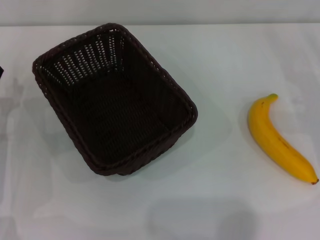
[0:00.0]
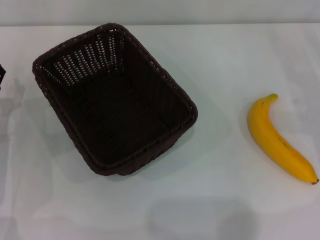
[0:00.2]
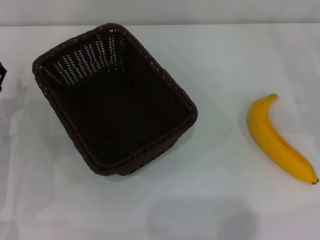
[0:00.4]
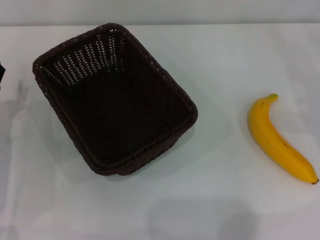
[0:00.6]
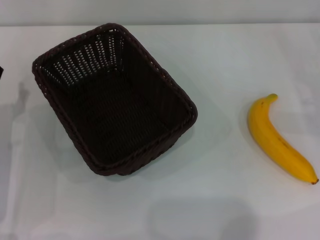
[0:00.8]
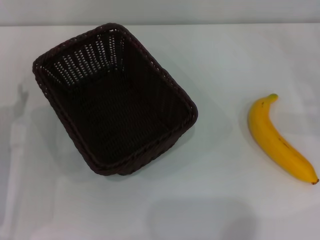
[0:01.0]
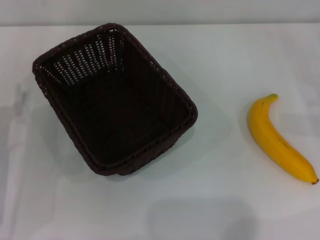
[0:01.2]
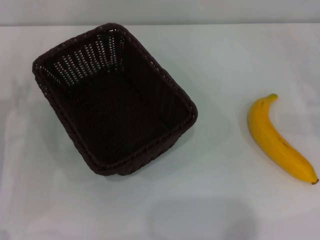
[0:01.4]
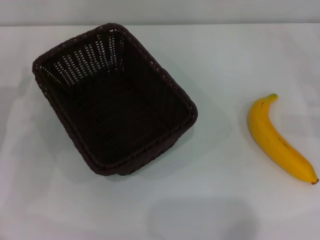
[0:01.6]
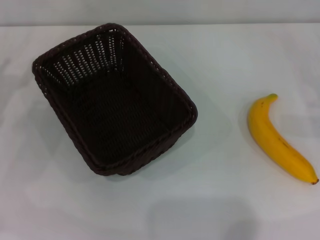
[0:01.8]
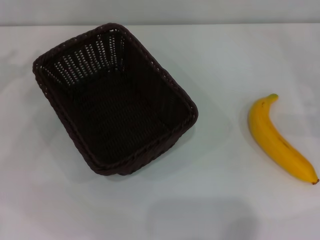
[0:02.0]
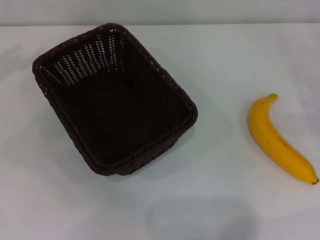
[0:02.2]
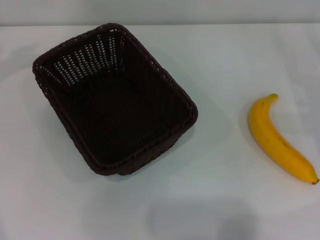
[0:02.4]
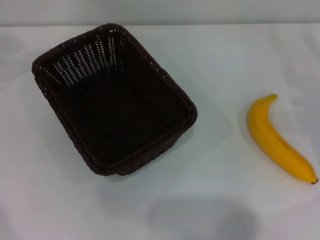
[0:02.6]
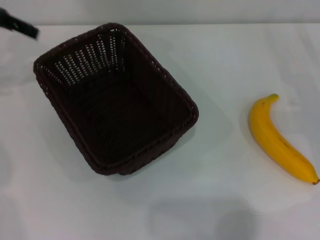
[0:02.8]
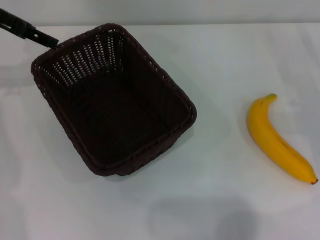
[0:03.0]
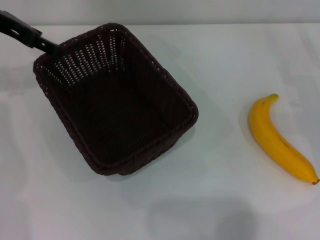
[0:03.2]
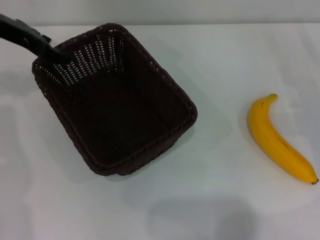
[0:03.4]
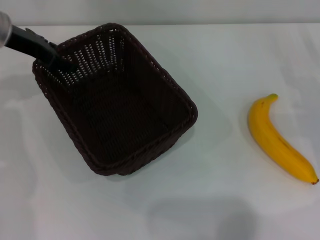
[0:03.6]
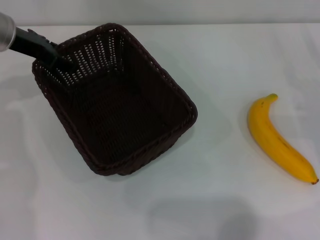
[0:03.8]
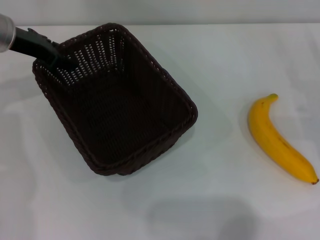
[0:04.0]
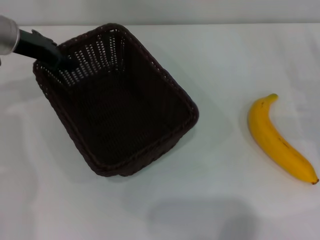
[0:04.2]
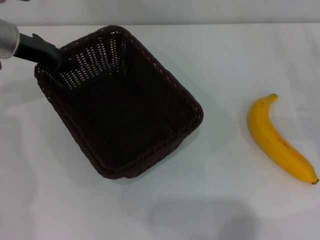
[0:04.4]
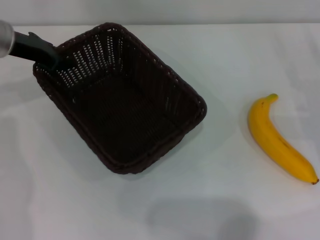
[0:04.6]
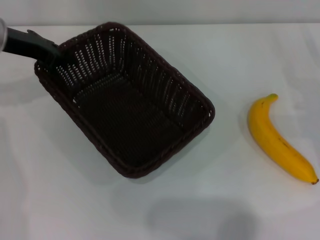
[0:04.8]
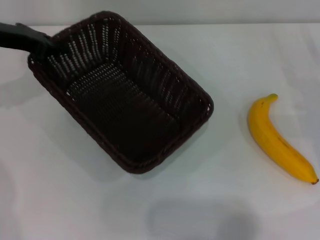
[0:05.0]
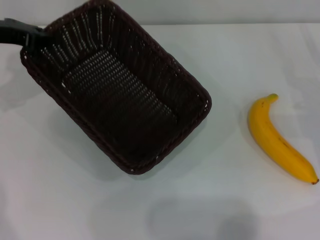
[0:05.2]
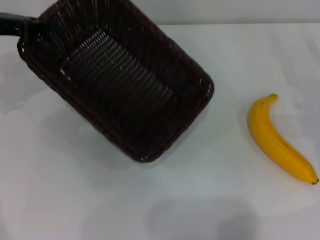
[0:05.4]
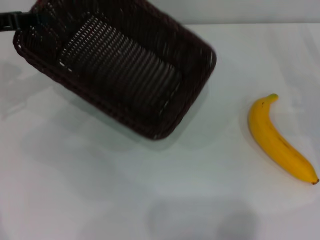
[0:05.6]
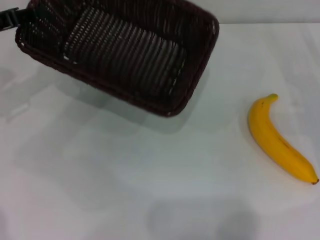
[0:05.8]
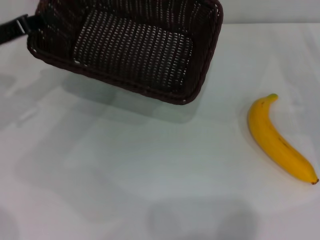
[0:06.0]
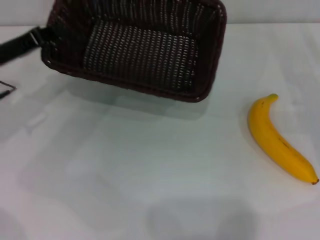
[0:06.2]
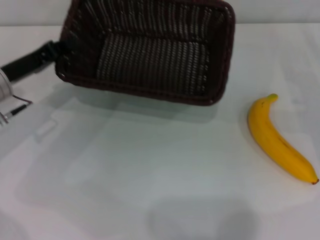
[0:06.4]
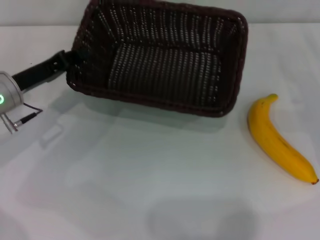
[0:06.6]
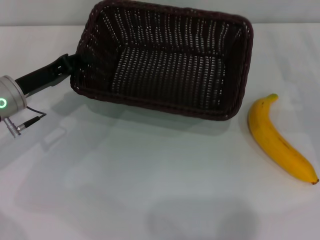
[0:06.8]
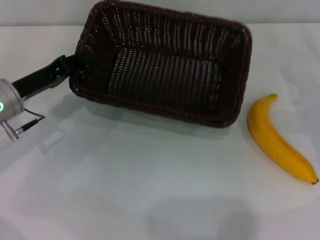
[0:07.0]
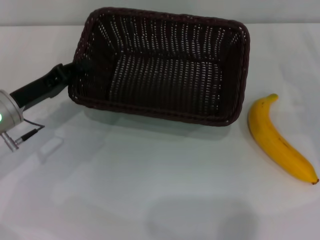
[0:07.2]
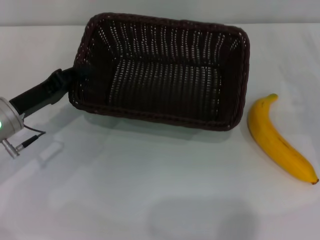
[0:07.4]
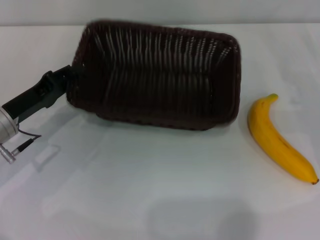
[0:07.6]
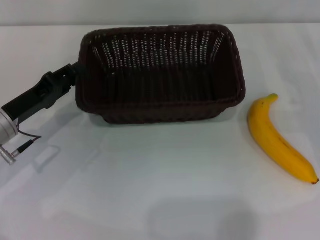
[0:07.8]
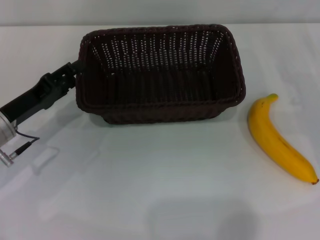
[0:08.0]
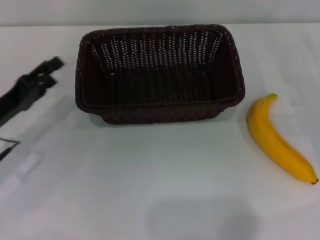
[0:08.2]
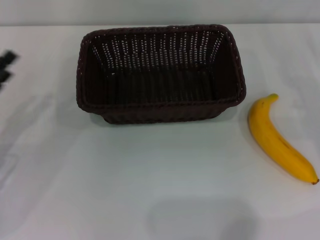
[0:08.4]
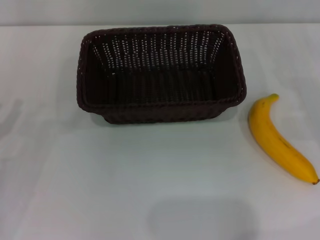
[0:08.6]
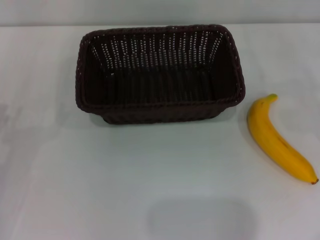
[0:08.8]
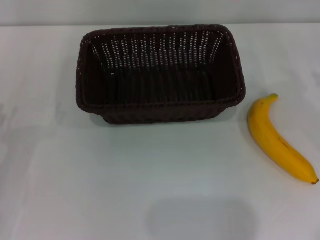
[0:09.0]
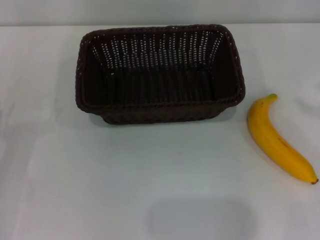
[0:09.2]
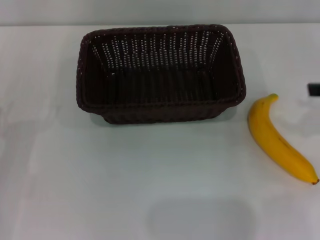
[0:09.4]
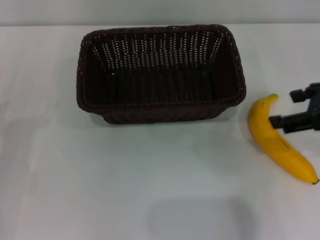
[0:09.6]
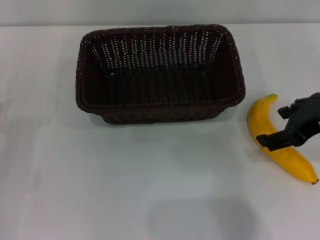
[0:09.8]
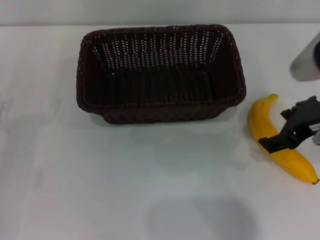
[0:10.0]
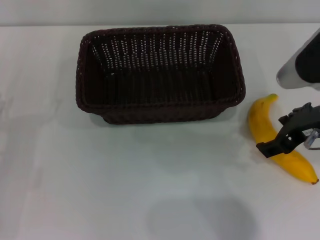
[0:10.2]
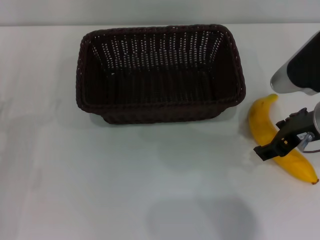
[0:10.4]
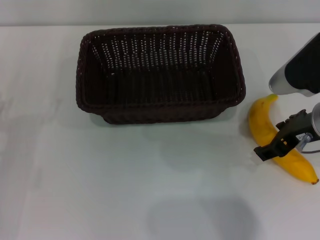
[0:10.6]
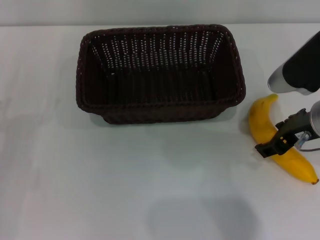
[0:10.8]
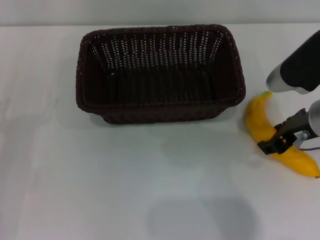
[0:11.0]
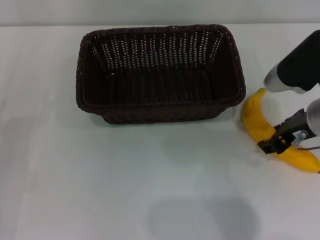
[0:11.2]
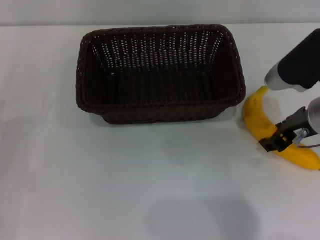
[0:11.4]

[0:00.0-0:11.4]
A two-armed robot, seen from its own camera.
Step, 0:00.0 to 0:05.2: Pick up the dark basket with the left gripper.
Step, 0:05.4 to 0:08.0: Place the dark basket in the center of view with the left gripper.
0:01.4 to 0:02.8: The left gripper is displaced upward and forward by some 25 cm.
0:02.8 to 0:04.2: The left gripper moves downward and to the right, roughly 10 cm.
0:04.2 to 0:05.6: The left gripper goes about 10 cm to the left and backward, and closes its fingers.
0:05.6 to 0:07.2: The left gripper is displaced downward, backward and to the right by some 15 cm.
0:07.2 to 0:08.6: The left gripper is displaced backward and to the left by some 15 cm, and opens.
0:08.6 to 0:10.0: The right gripper goes approximately 20 cm to the left and upward.
0:10.0 to 0:11.4: The right gripper shifts by about 5 cm, and closes its fingers.

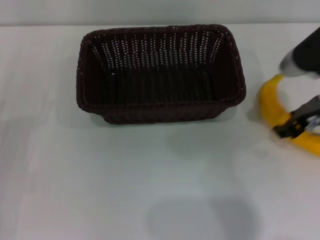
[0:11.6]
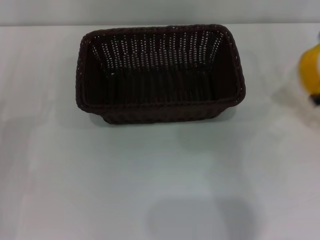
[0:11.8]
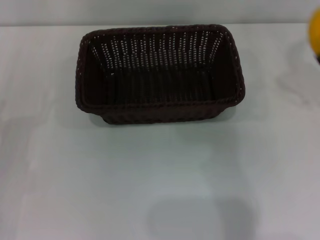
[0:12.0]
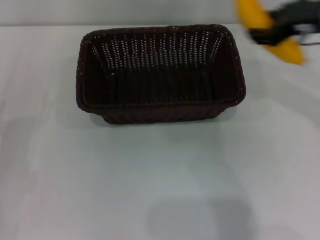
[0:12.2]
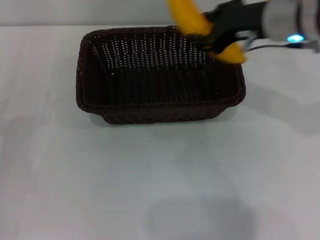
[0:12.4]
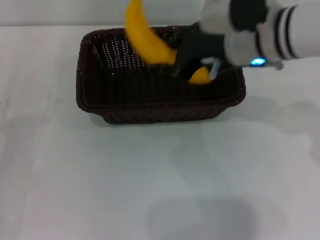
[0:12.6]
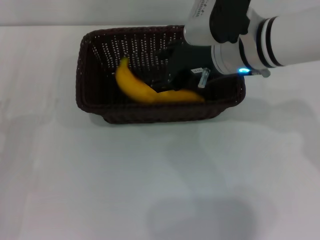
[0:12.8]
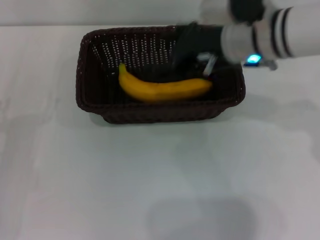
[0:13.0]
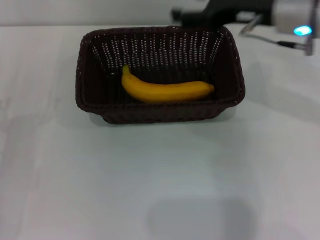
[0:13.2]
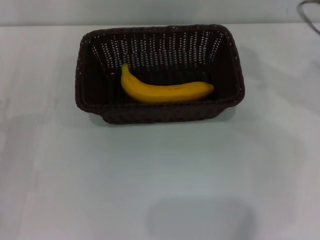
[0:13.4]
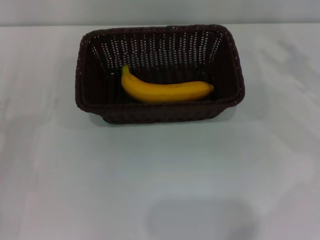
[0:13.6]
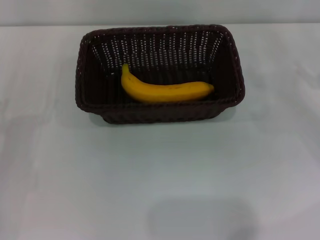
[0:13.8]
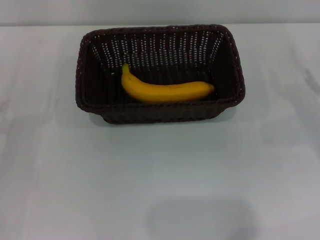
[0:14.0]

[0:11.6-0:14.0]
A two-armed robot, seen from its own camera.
Step, 0:12.2 to 0:13.0: Place the banana into the dark basket with the right gripper.
0:11.6 to 0:12.8: The right gripper shifts approximately 15 cm to the left.
0:12.8 to 0:14.0: The right gripper travels to the right and downward by approximately 30 cm, and opens up.

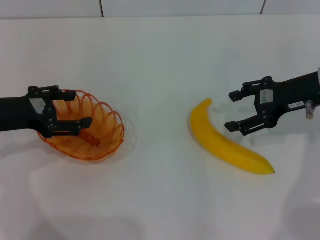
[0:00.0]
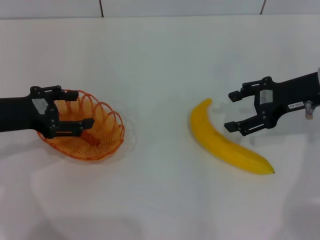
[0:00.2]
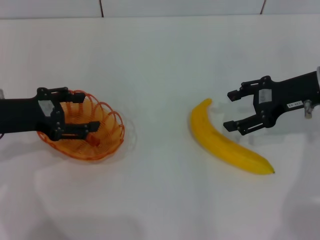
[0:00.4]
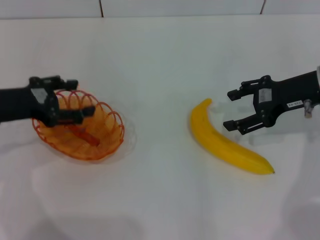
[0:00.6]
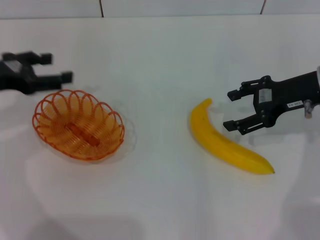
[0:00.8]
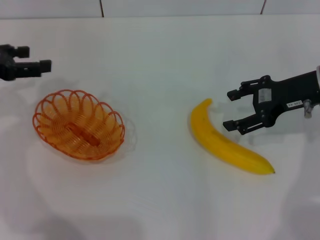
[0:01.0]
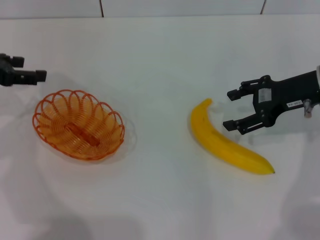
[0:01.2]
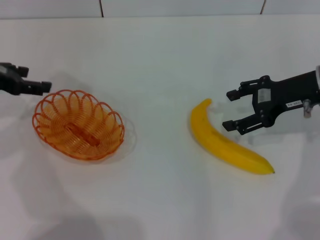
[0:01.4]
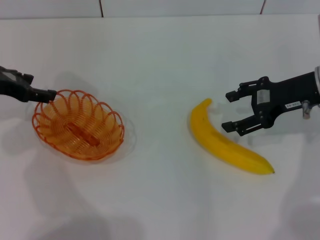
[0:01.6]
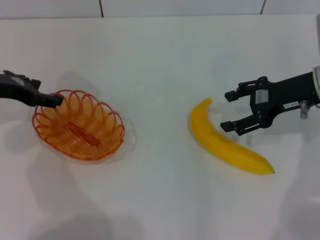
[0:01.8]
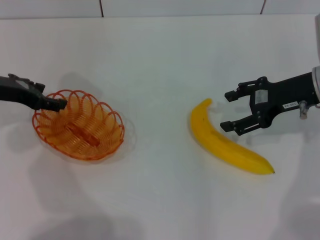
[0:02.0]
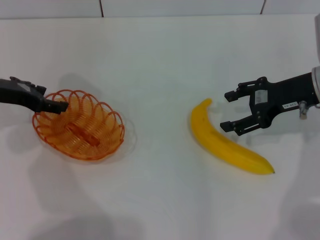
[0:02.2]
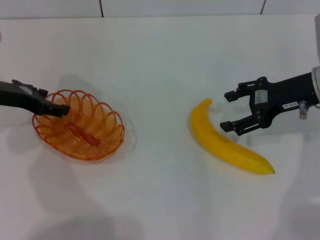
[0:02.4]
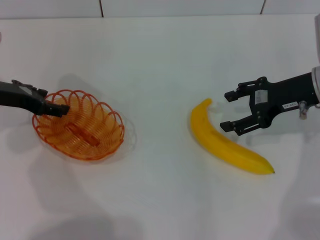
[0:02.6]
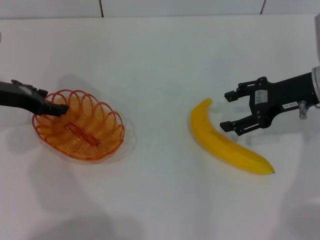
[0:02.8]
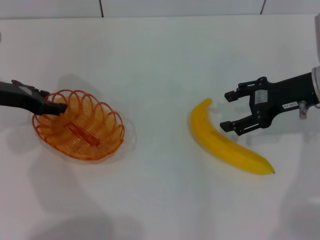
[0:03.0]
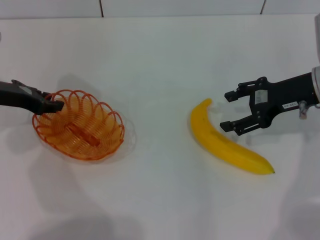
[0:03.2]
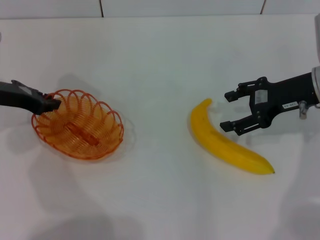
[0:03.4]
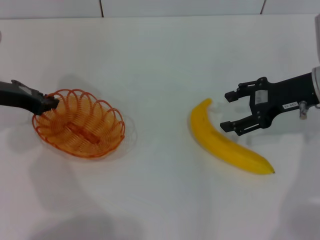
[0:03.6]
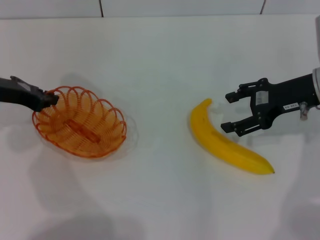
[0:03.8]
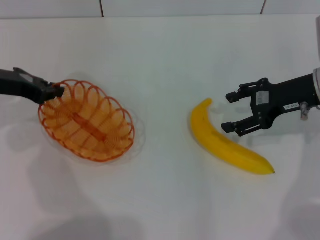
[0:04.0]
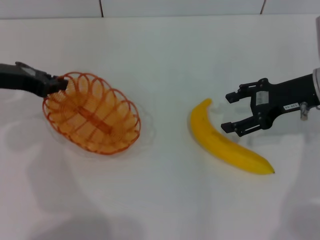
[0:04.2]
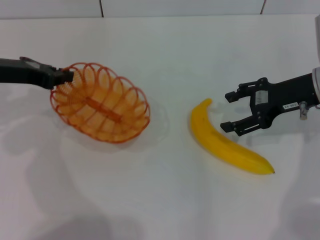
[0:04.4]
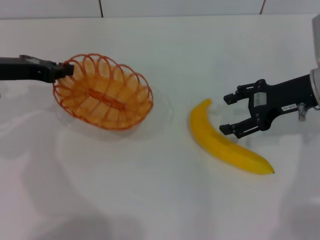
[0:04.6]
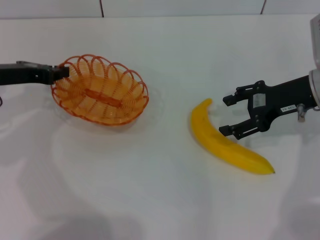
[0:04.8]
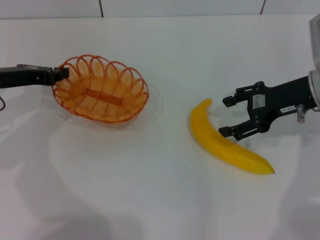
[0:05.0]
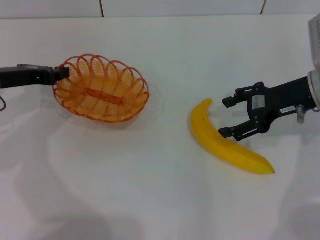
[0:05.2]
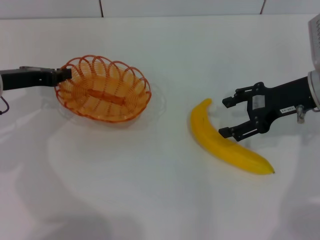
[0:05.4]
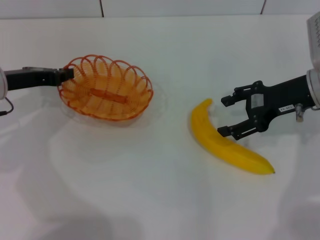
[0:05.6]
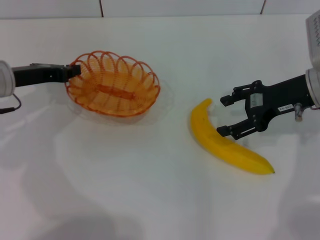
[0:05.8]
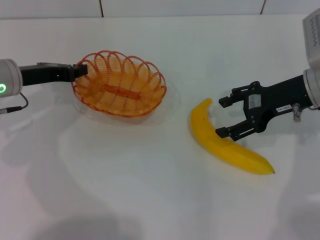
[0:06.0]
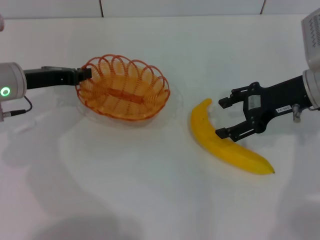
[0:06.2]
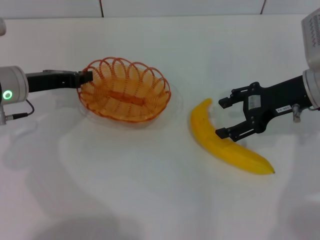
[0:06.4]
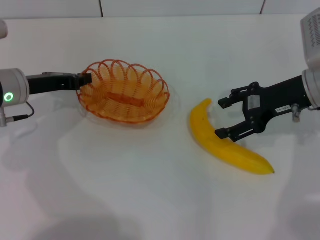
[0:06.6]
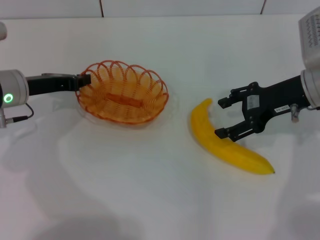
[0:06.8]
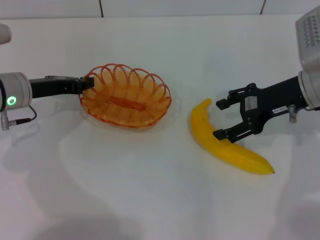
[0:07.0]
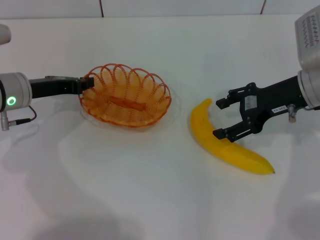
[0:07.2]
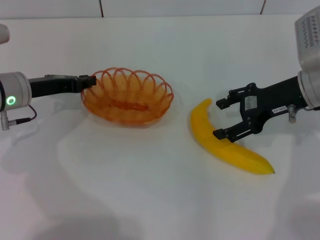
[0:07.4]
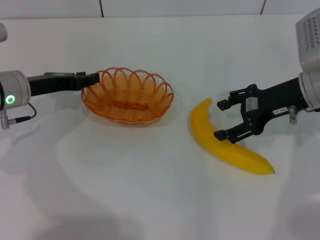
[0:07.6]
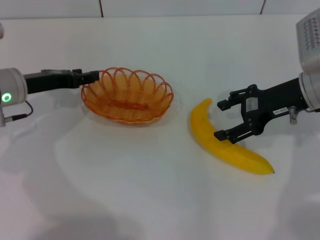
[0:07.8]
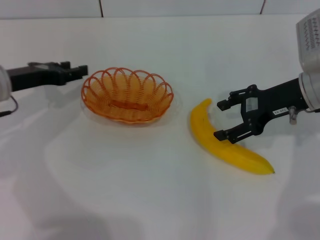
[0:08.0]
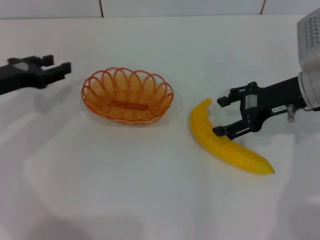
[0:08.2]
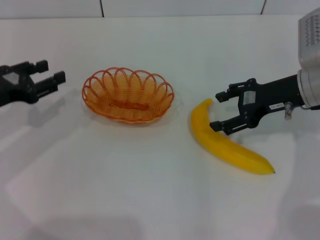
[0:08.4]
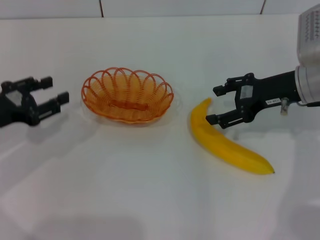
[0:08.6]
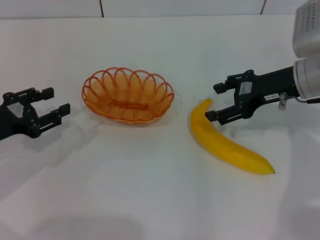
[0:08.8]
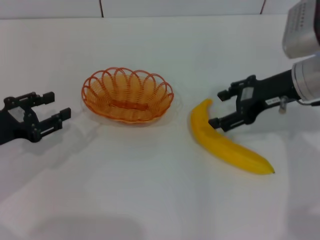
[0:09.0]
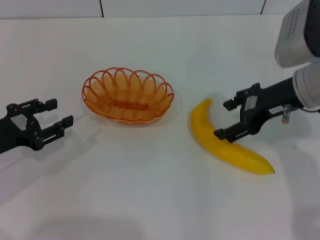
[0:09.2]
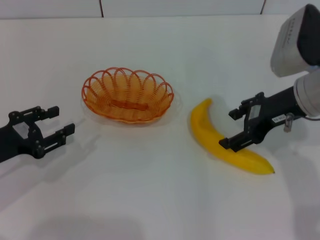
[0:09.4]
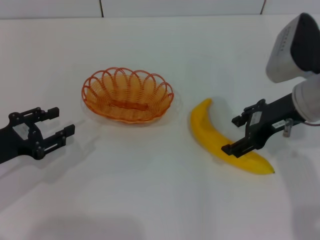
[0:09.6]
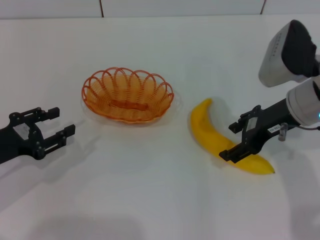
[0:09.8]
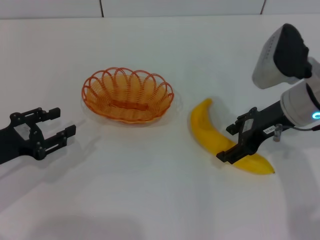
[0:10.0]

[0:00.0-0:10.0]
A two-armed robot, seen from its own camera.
Step, 0:00.0 to 0:04.0: Pick up the basket with the left gripper.
Step, 0:04.2 to 0:07.6: Place the basket in the center of view with the left gripper.
0:00.0 to 0:01.4: The left gripper shifts approximately 5 cm forward.
0:01.4 to 0:02.8: The grippers make only small movements.
0:02.8 to 0:04.2: The left gripper closes.
0:04.2 to 0:05.8: The left gripper moves about 5 cm.
0:05.8 to 0:07.2: The grippers stay close to where they were, moving slightly.
0:07.2 to 0:08.6: The left gripper is displaced backward and to the left by roughly 10 cm, and opens its fingers.
